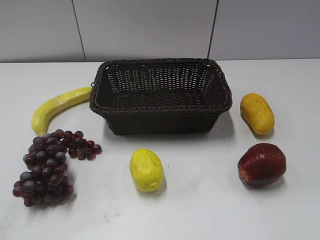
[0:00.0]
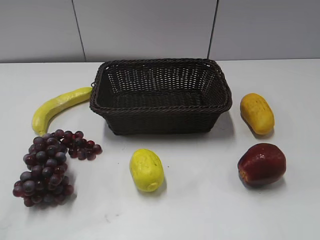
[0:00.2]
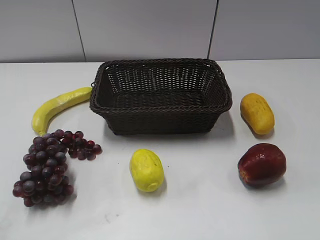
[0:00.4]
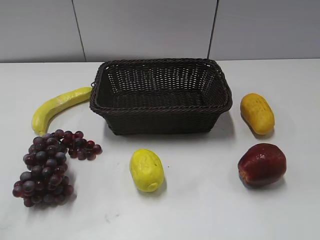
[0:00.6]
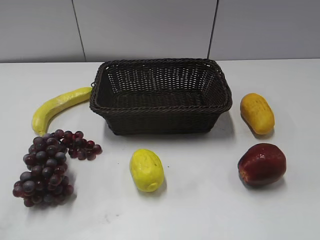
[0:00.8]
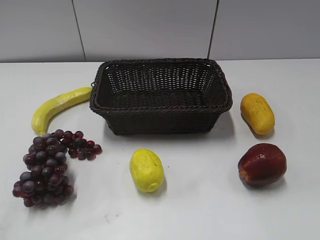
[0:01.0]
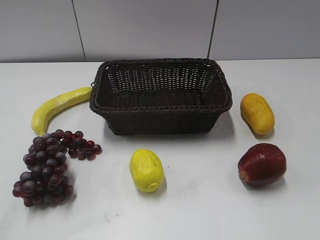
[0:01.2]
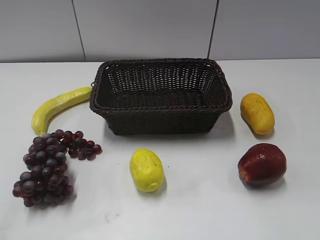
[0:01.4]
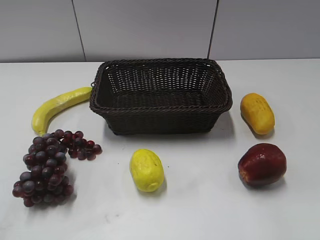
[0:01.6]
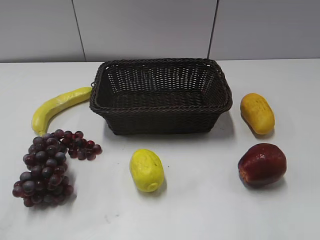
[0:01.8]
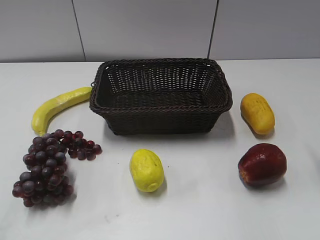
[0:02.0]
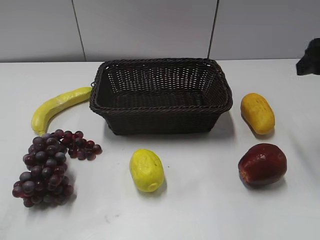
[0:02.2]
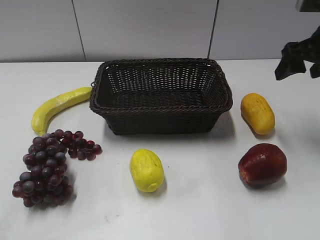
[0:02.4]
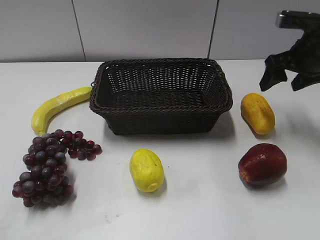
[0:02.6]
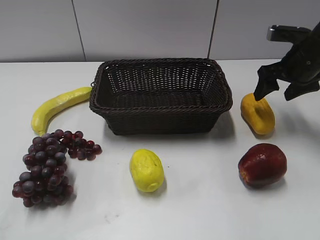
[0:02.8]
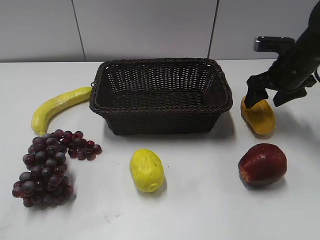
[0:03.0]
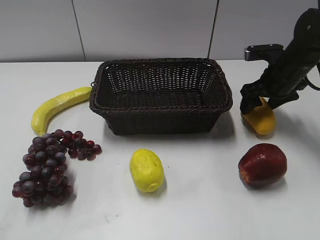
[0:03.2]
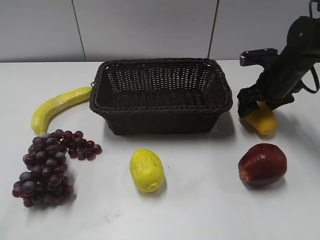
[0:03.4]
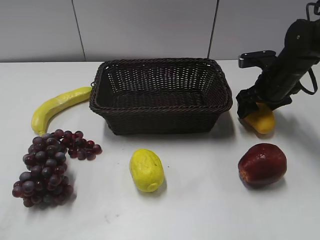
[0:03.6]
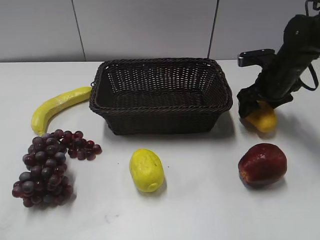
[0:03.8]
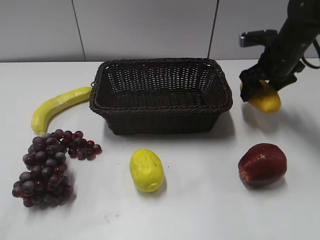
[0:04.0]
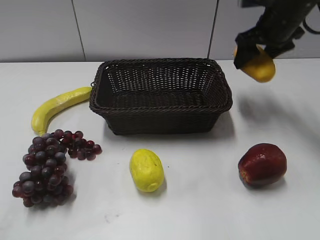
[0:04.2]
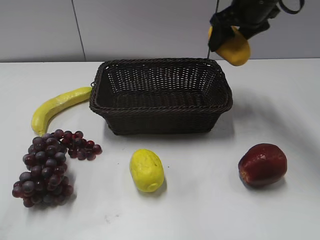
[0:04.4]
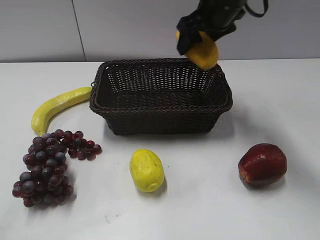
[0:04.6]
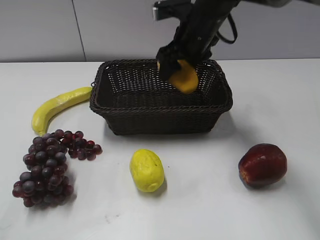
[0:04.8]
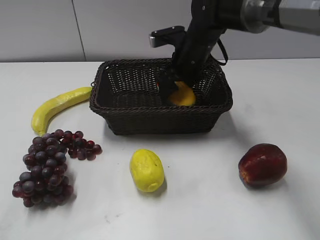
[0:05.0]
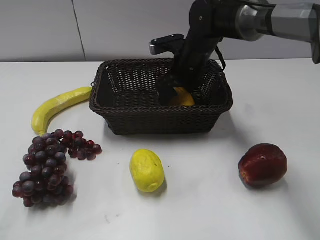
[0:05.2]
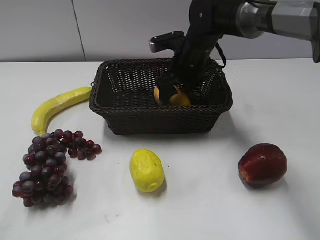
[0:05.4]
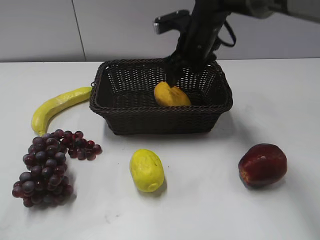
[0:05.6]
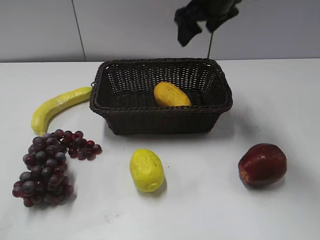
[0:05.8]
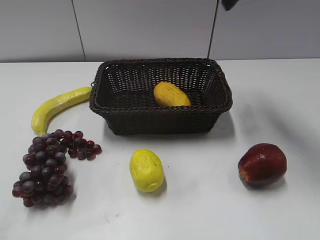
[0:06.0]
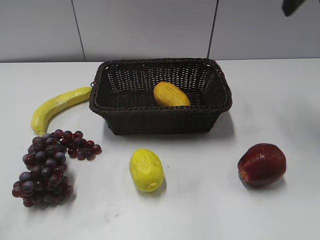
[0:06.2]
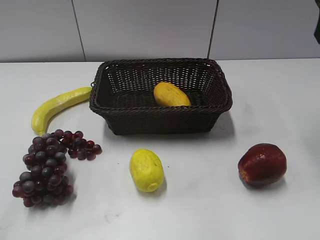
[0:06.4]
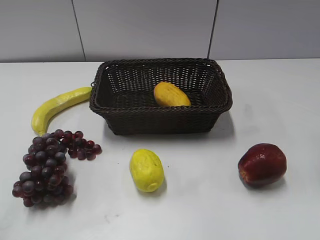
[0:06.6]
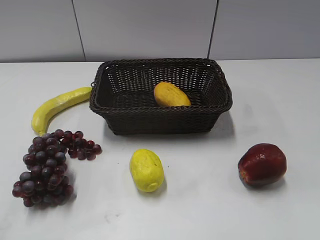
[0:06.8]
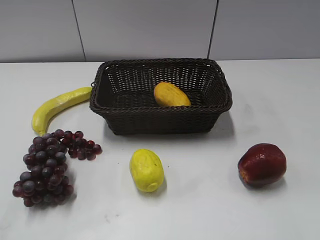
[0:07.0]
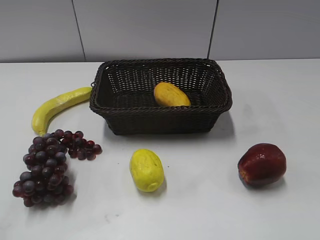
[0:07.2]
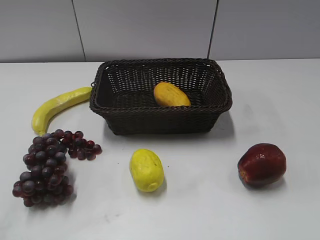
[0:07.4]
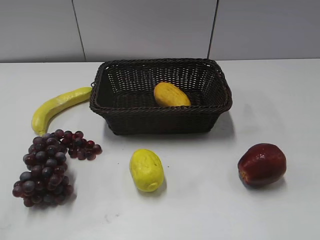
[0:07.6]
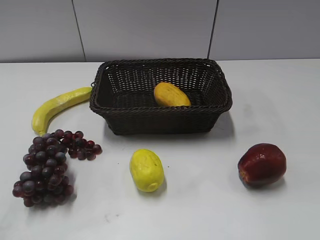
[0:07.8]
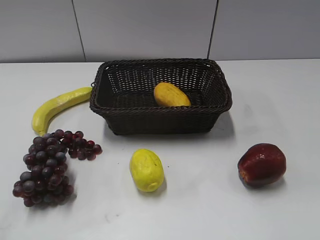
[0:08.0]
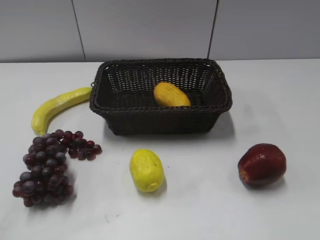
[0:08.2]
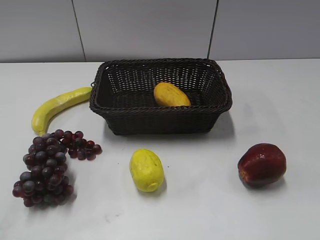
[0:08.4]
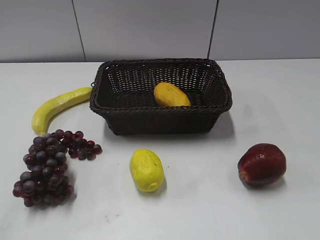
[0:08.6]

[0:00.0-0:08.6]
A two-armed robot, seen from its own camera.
Step, 0:02.2 to 0:03.6: Grasp the mango with right gripper.
Step, 0:03.8 to 0:05.2: Place the mango in the basket with right gripper.
0:01.4 to 0:02.8: The right gripper shifts approximately 35 cm forward.
0:02.8 to 0:04.4: The right gripper moves to the left and upward, roughly 15 cm.
0:04.4 to 0:05.8: The right gripper goes downward and returns, approximately 15 cm each way.
0:05.8 to 0:07.2: The right gripper heads backward and to the right, covering some 40 cm.

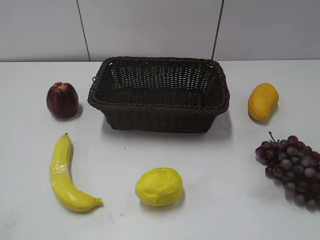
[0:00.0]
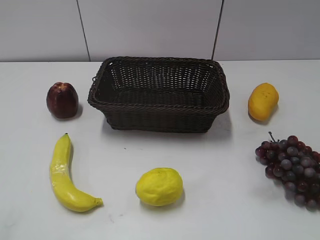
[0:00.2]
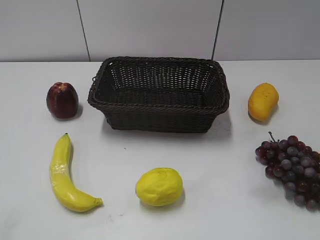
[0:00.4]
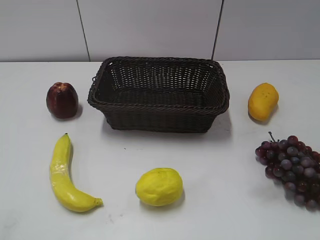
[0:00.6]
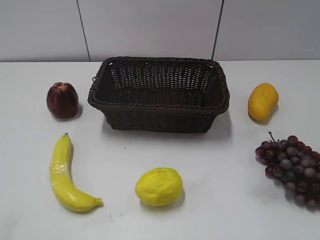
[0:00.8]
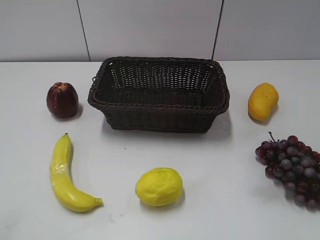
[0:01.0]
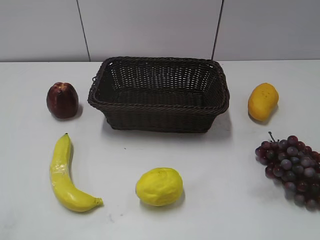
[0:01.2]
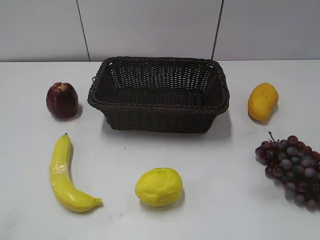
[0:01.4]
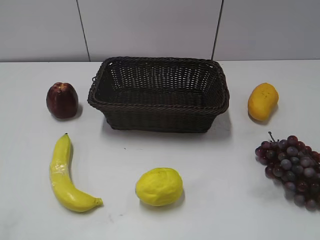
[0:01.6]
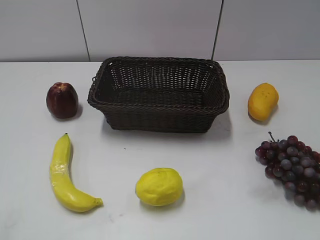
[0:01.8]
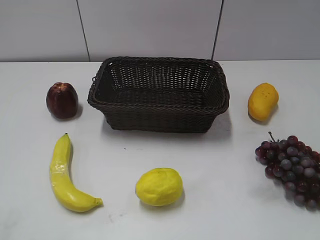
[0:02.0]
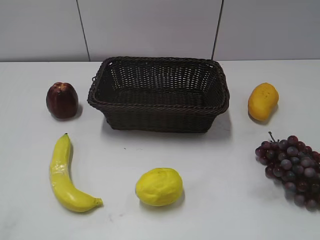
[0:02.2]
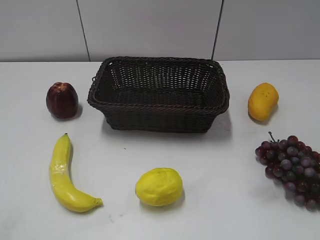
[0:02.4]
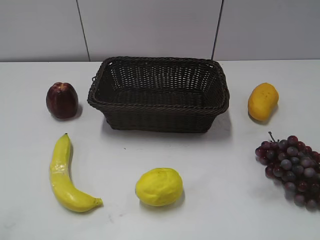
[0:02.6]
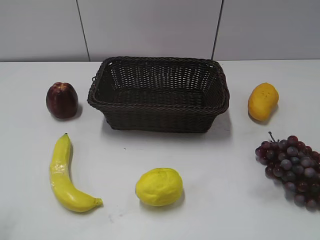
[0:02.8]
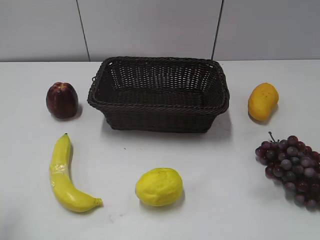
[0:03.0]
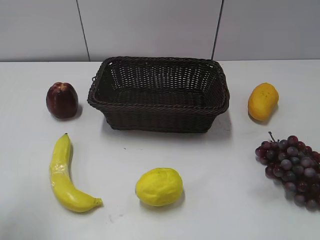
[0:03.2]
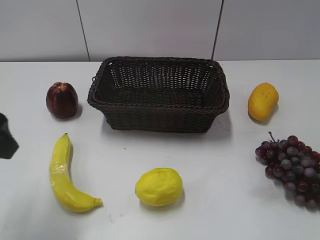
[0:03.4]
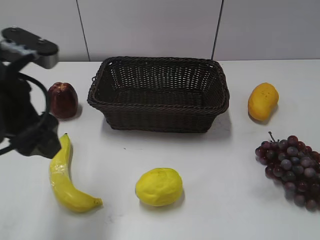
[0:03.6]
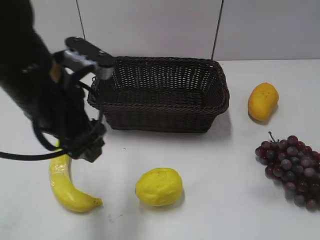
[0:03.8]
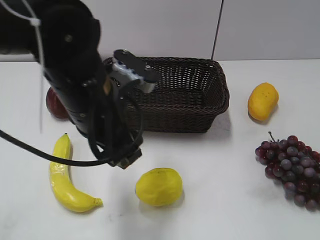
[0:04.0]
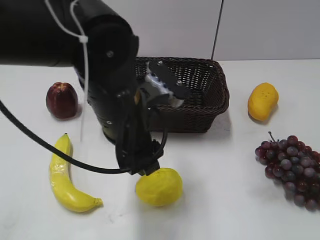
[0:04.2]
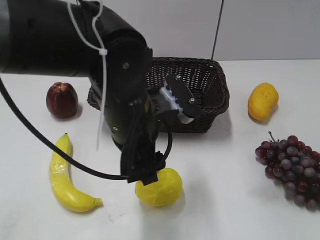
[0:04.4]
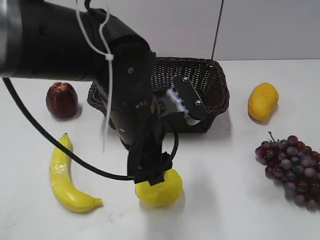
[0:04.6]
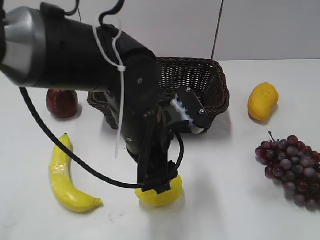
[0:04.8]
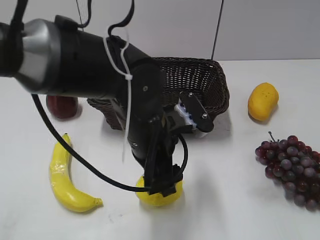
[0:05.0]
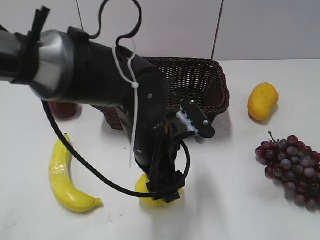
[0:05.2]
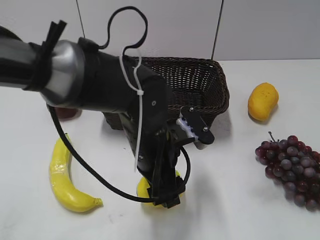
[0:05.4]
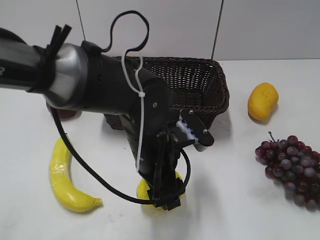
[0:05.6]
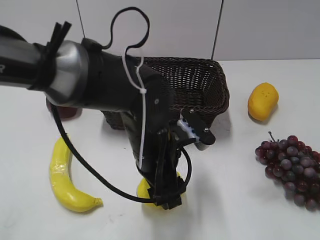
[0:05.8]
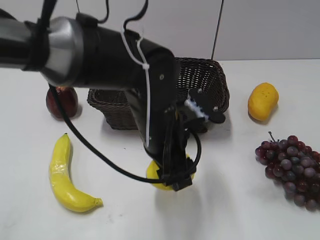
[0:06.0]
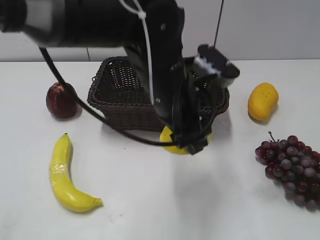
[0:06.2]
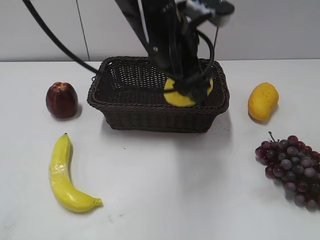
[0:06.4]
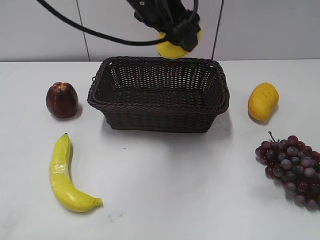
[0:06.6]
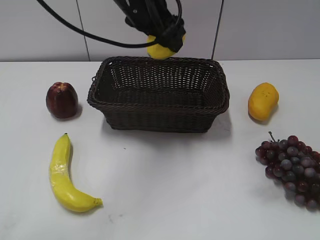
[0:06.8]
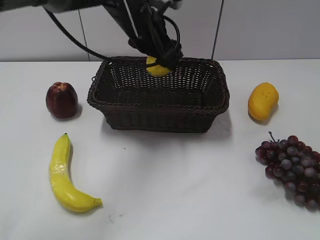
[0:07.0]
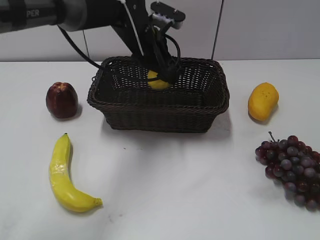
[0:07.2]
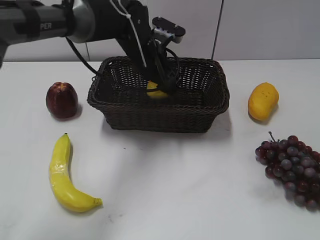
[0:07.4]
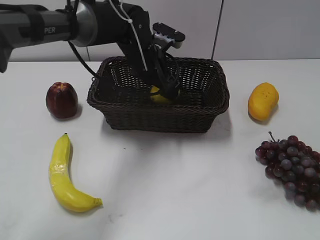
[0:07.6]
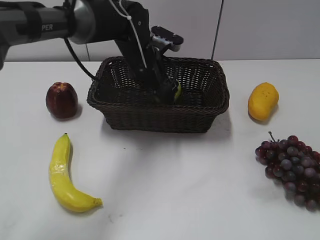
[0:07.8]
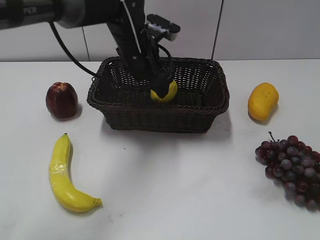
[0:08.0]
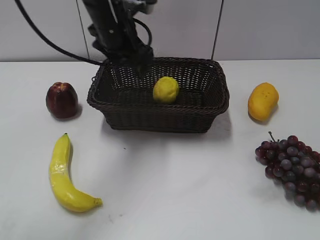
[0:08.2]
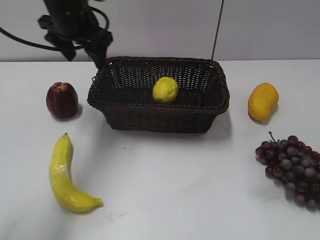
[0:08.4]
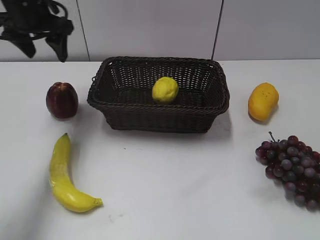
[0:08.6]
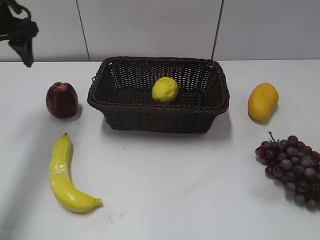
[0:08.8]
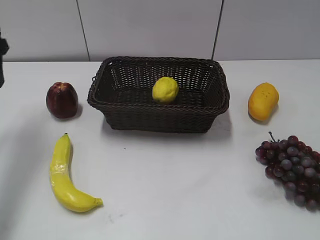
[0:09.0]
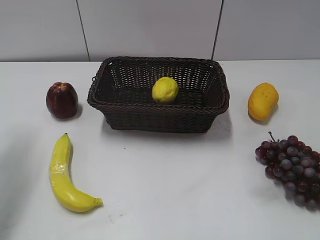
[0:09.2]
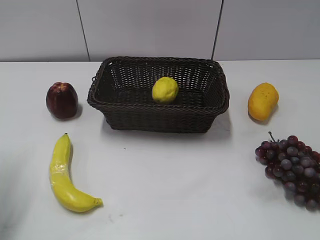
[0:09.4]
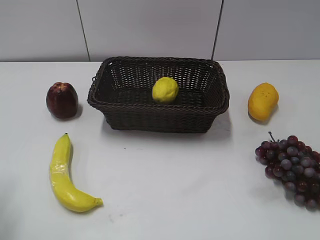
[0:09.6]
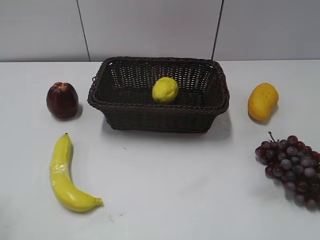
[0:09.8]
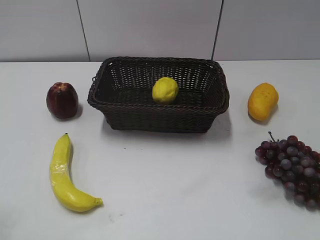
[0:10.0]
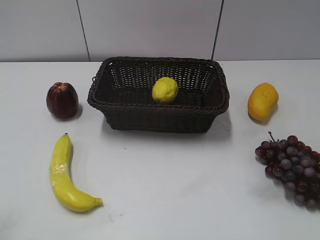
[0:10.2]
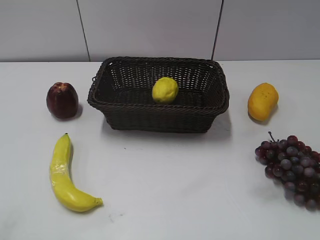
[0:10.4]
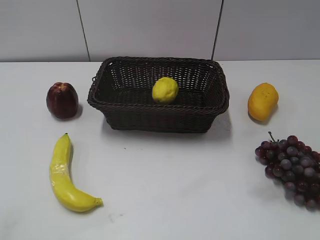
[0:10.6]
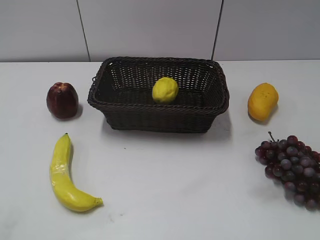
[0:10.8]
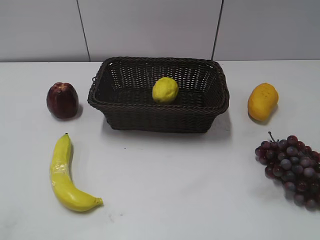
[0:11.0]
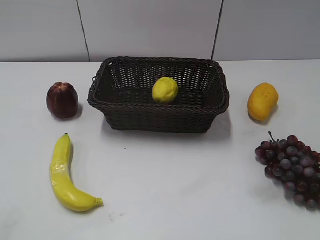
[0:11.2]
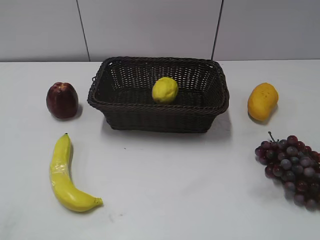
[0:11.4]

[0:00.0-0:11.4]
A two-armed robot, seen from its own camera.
Step, 0:03.4 to 0:05.8: Grasp the lemon with left gripper.
Step, 0:06.0 to 0:07.8: Place the lemon in the basket with left gripper.
0:02.8 to 0:04.2: The left gripper goes approximately 30 cm to the right.
0:04.2 to 0:05.6: The left gripper is displaced downward by approximately 10 cm.
0:05.6 to 0:07.2: The left gripper travels forward by some 20 cm.
0:07.2 to 0:08.6: The left gripper is displaced to the left and upward by approximately 20 cm, and opens, then closes again.
0:08.6 to 0:10.0: The left gripper heads backward, covering roughly 30 cm.
